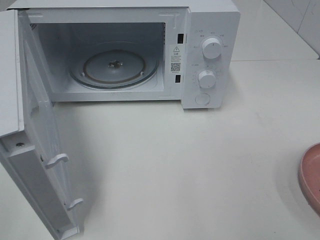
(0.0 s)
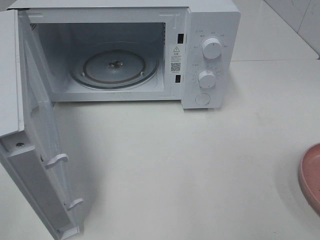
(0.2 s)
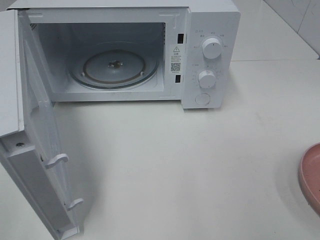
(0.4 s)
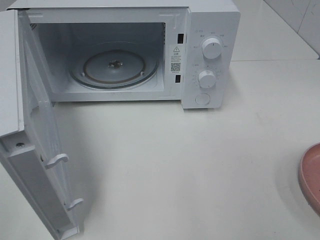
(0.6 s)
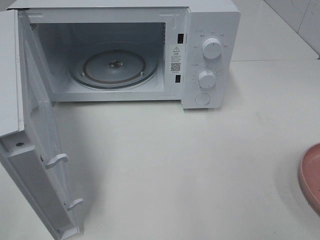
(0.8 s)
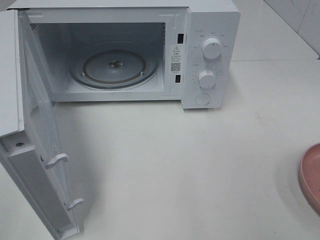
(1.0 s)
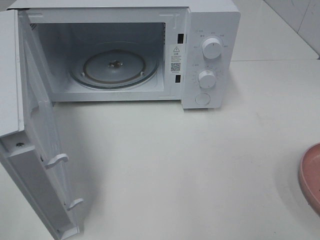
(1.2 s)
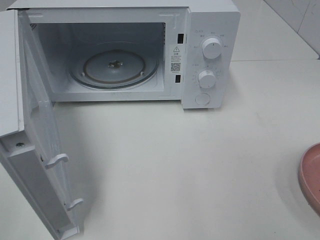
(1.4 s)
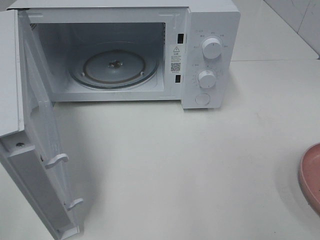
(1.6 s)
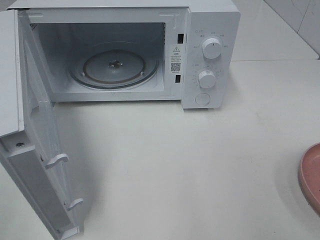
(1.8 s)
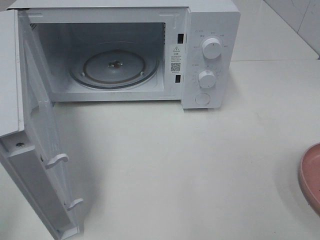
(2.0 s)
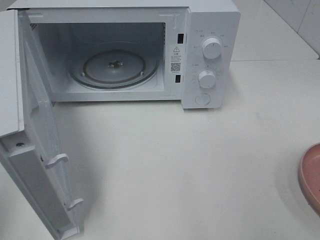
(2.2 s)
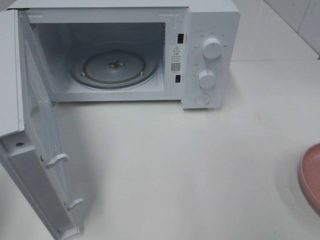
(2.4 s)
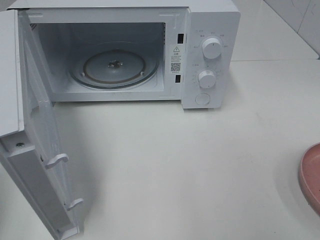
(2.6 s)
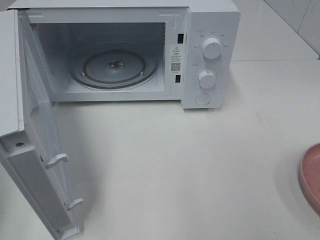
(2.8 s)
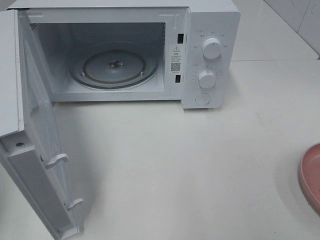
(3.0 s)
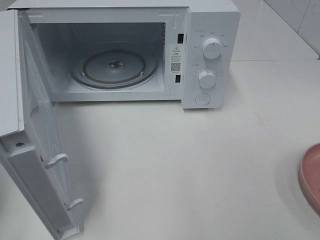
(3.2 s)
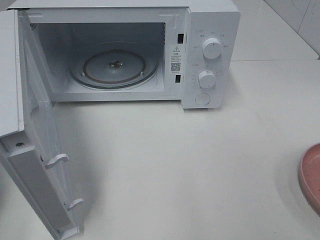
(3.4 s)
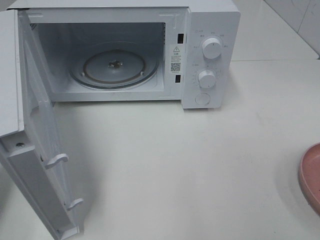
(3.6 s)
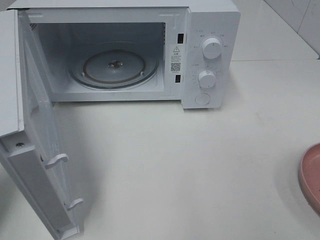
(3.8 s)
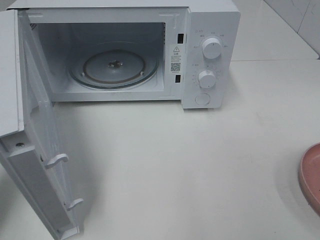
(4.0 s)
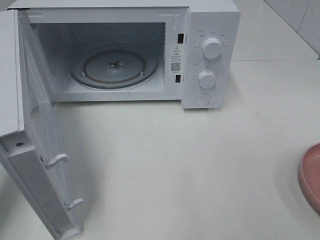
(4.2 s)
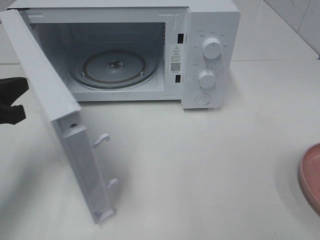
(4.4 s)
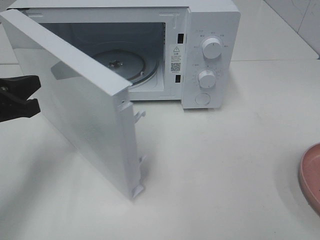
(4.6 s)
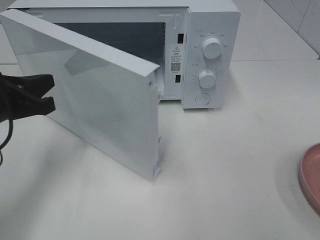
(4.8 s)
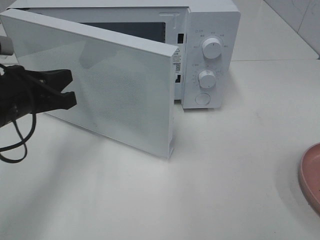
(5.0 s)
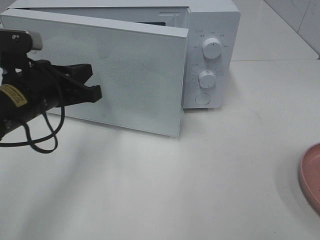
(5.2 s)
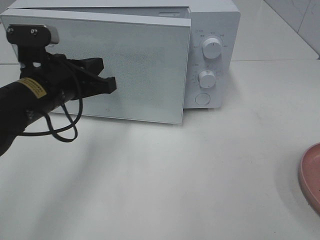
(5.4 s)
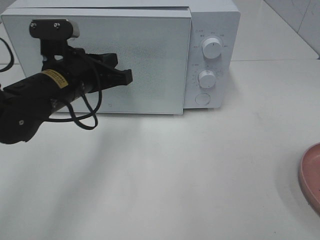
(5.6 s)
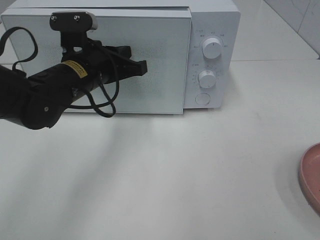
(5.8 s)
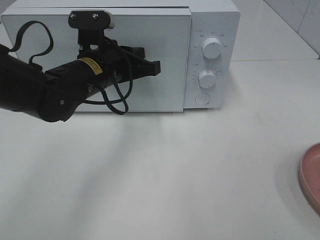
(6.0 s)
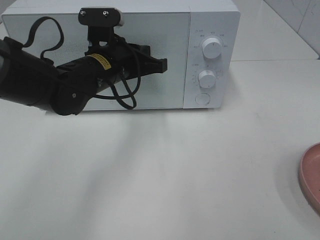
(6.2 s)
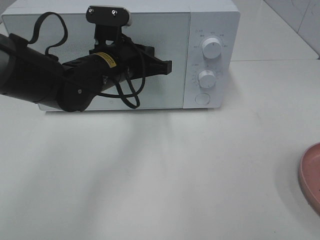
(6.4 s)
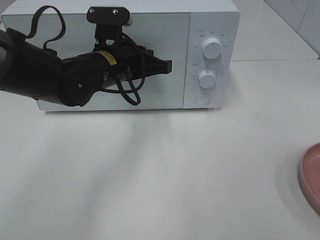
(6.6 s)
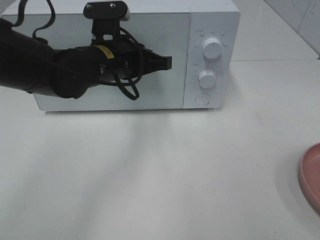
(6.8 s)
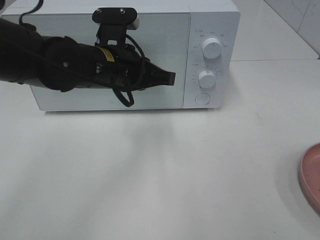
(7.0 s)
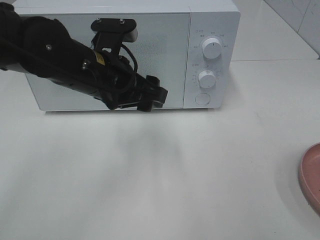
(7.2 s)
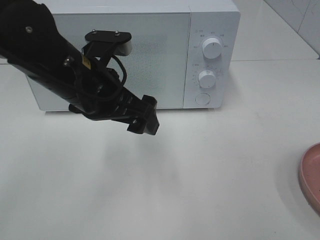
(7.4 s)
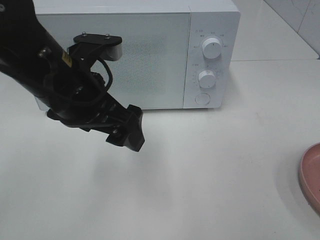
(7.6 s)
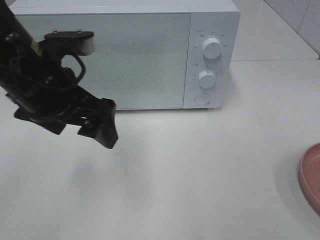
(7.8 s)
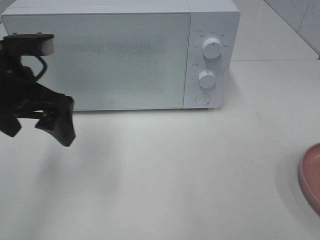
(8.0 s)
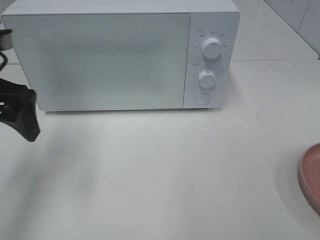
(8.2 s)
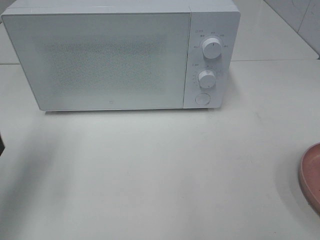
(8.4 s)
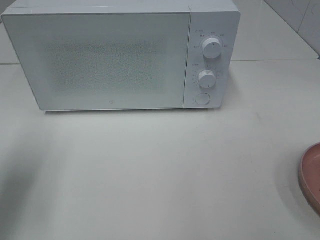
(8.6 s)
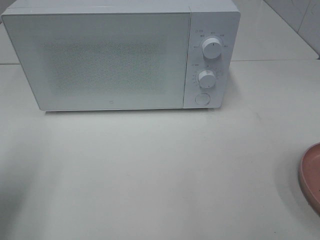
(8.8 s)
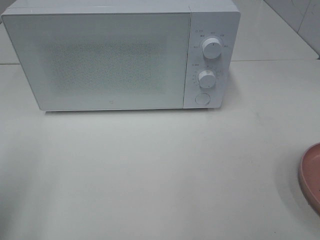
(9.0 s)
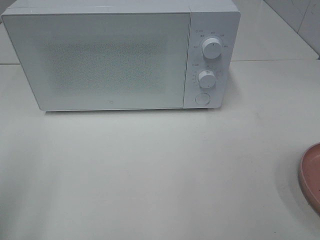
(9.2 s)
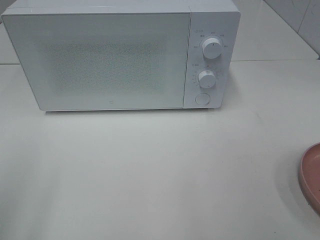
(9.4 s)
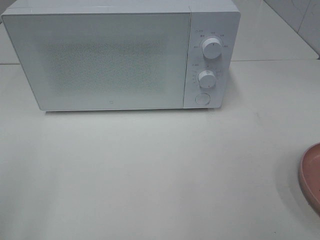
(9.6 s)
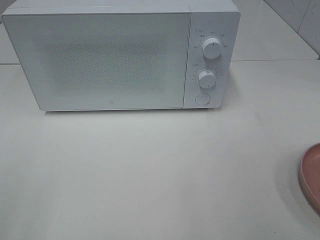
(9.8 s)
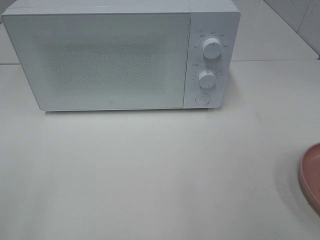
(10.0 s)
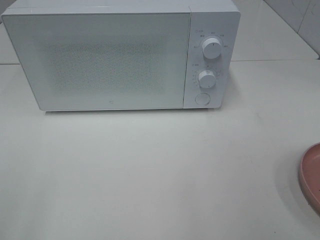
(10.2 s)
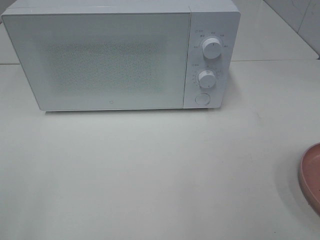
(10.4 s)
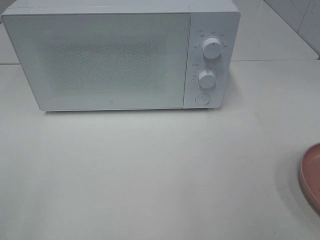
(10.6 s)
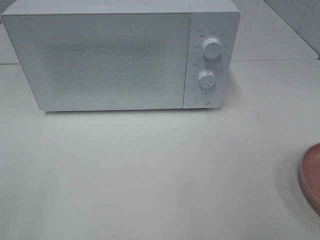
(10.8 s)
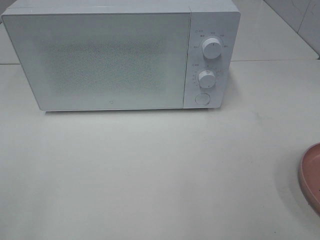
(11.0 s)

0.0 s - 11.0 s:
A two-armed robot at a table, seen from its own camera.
Task of the whole recording: Heat the burger.
Step, 0.0 s - 6.8 s: Left hand: close the microwave door.
0.0 s - 1.6 s: The two grippers keep their place.
3.2 s - 4.8 s: The left gripper moves to the right, forward and downward, some 15 cm.
4.8 s - 6.2 s: The left gripper goes some 20 cm to the right and forward.
6.2 s - 7.8 s: The left gripper travels backward, upward and to the left by some 15 cm, and opens.
7.8 s - 9.4 s: The left gripper heads backward and to the left, covering some 25 cm.

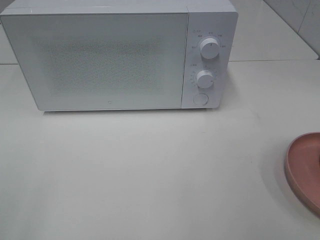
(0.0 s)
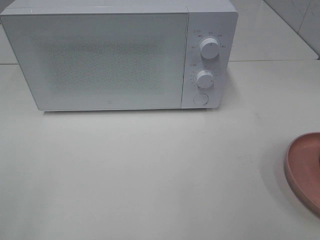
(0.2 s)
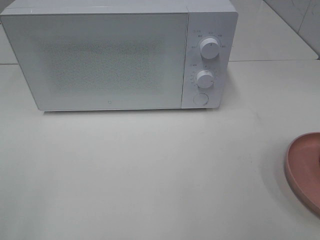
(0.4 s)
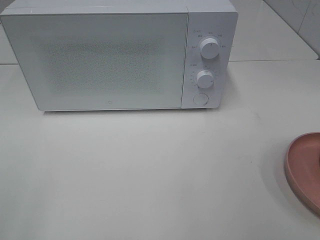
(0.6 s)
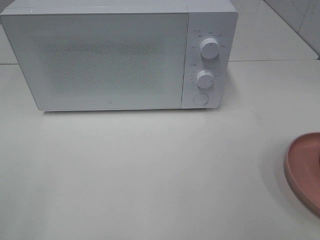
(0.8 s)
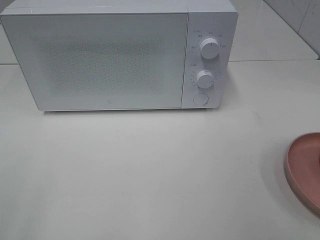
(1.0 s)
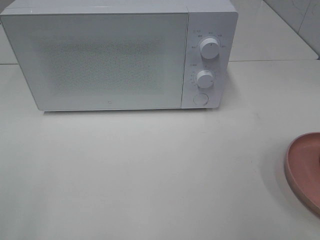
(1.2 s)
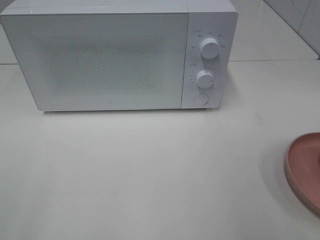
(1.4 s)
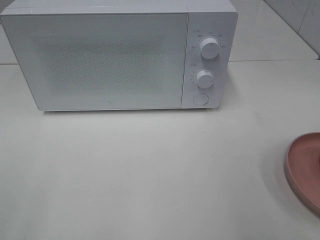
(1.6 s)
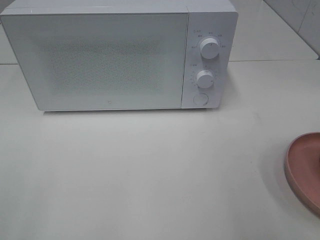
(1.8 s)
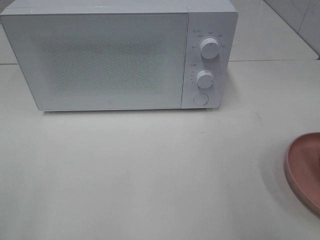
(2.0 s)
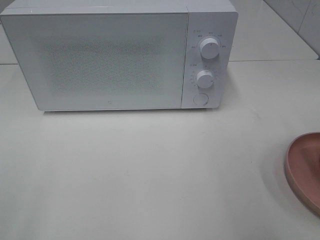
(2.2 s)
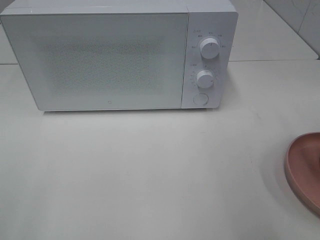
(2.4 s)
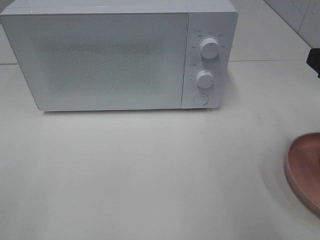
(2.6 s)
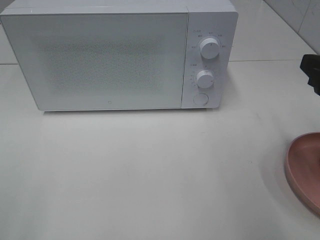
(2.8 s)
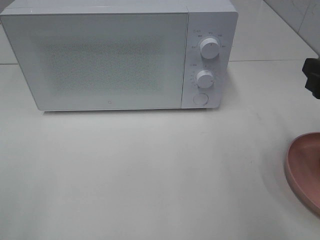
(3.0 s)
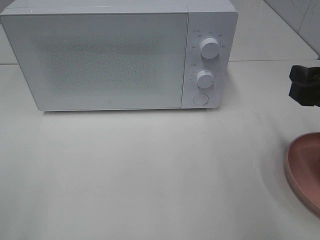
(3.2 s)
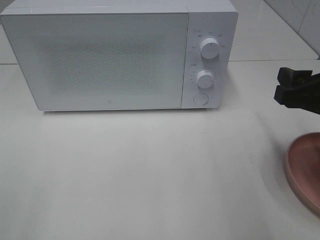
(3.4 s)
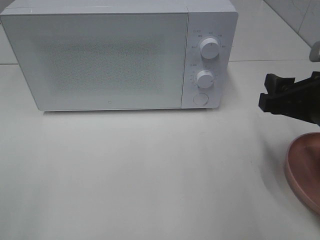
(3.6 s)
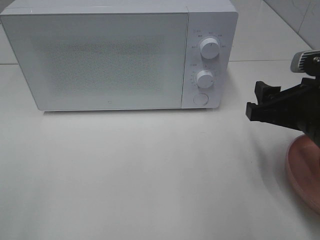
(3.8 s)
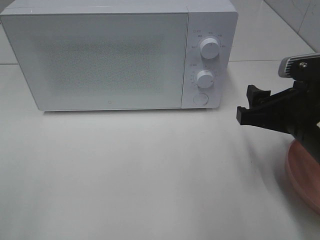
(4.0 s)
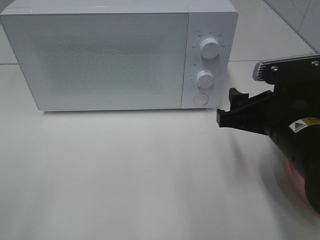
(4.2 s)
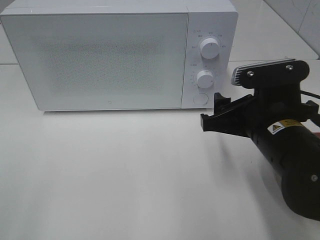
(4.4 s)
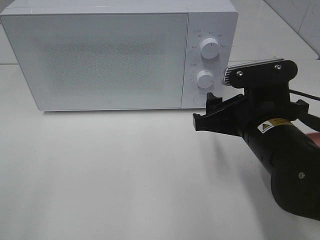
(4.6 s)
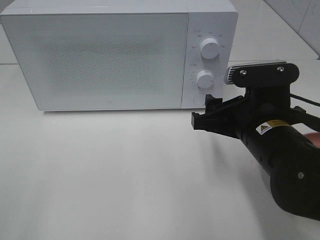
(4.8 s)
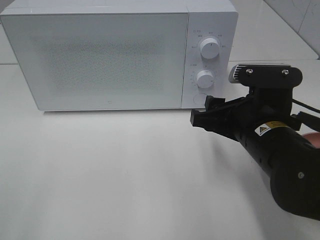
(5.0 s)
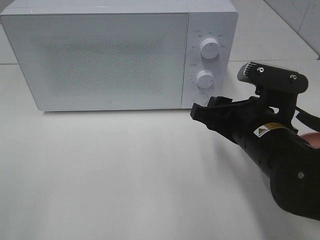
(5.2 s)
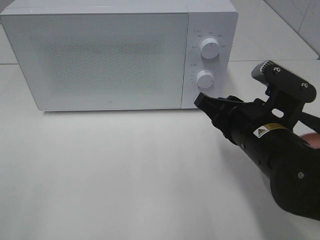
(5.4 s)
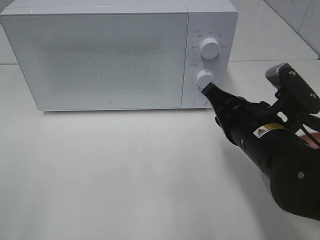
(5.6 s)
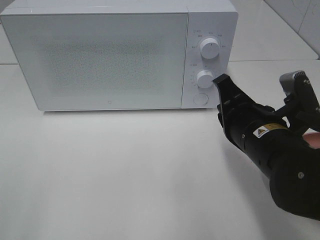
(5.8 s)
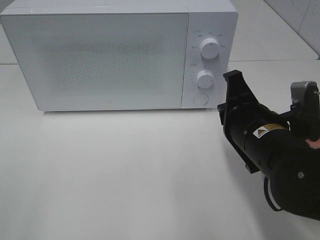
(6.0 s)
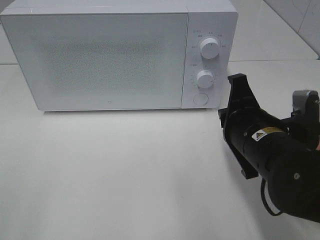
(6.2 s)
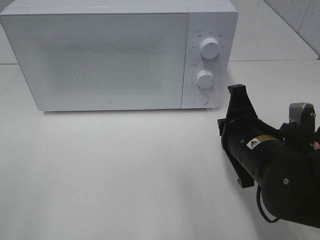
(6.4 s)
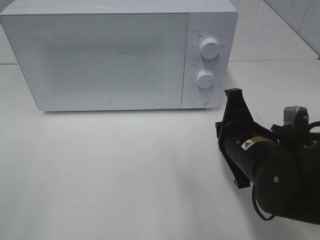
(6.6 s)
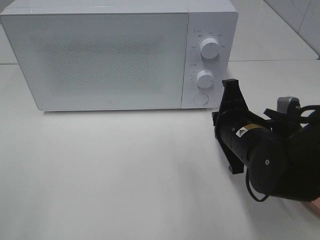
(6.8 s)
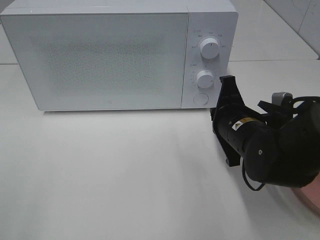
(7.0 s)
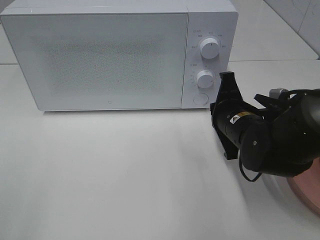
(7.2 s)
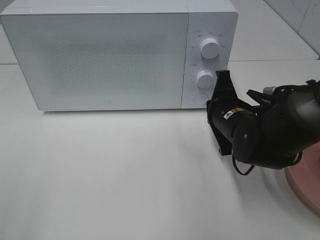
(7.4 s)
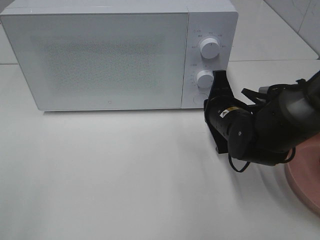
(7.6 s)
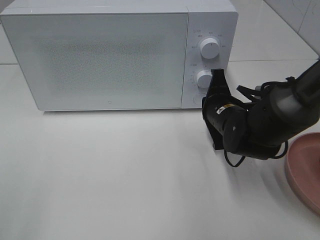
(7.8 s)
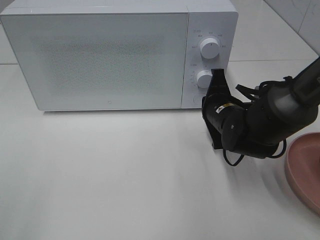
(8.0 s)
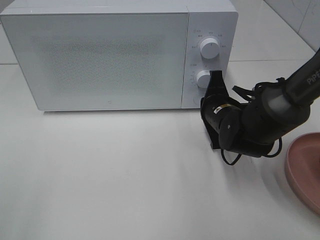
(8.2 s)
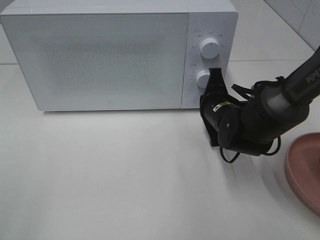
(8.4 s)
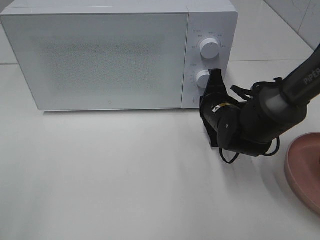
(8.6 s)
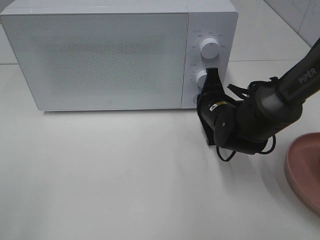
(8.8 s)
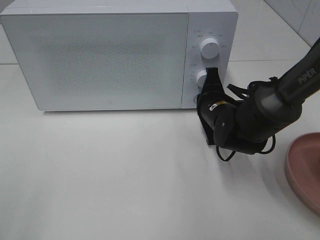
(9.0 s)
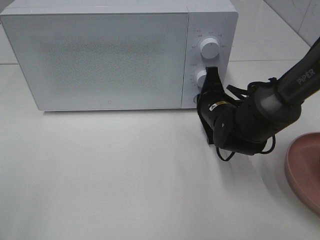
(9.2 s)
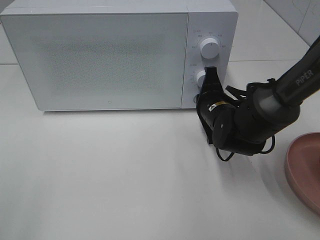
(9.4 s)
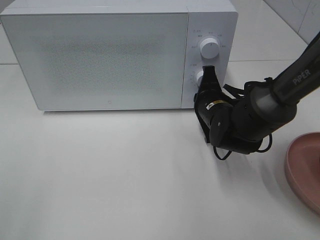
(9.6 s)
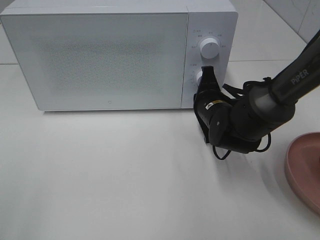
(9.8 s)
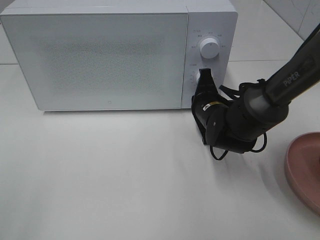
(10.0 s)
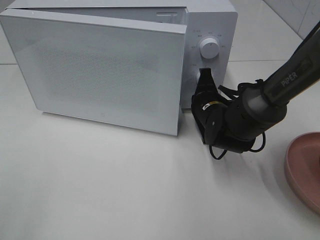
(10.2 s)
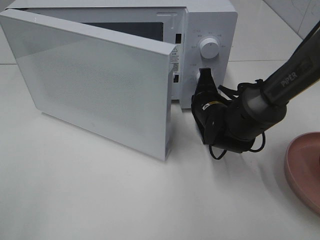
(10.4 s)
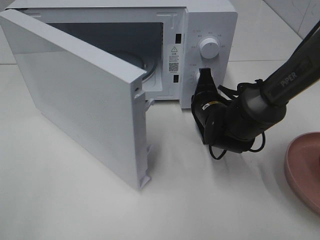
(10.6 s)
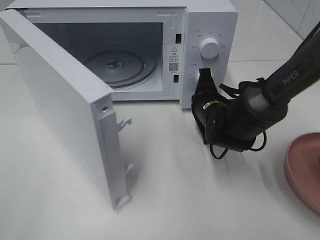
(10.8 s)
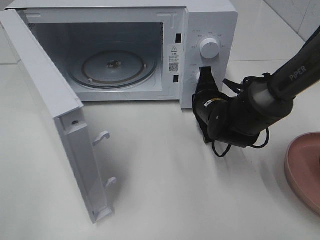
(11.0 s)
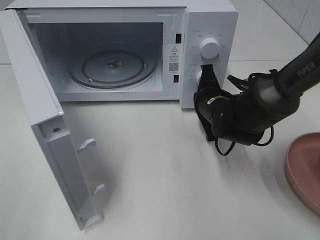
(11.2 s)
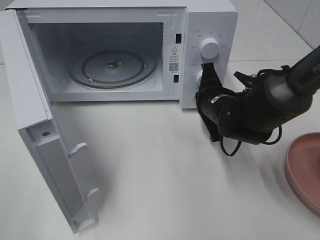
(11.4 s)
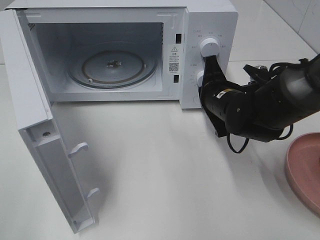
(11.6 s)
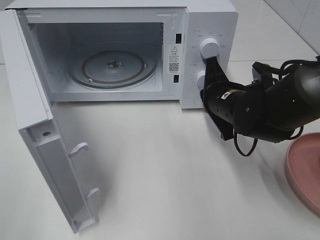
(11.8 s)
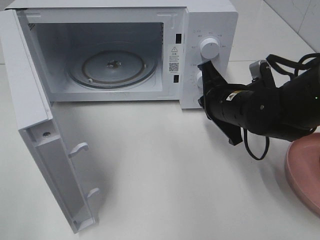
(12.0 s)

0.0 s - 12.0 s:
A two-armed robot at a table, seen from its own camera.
Task of the whole recording: Heat the burger.
Step, 0.0 s - 11.6 s: Right hand: press the switch.
1.6 s - 3.0 s: The right gripper moves forward and downward, some 10 cm.
3.0 s - 4.4 s: The right gripper goes roughly 15 cm to the left and downward.
4.4 s - 6.0 s: The right gripper closes up.
6.0 s - 7.6 s: The right gripper goes about 10 cm forward and downward.
7.6 s - 10.4 s: There are only small adjustments of the grippers.
10.4 s - 12.0 s: The right gripper travels upward and backward by approximately 10 cm.
